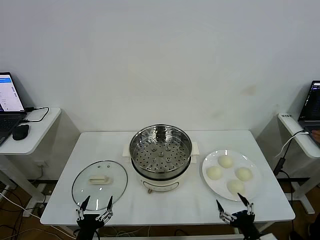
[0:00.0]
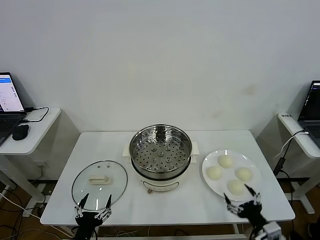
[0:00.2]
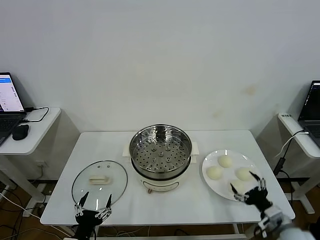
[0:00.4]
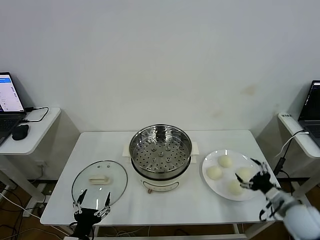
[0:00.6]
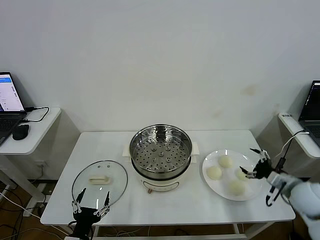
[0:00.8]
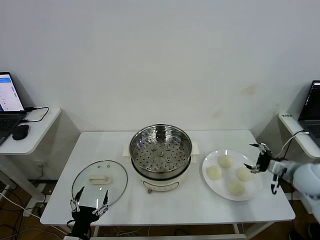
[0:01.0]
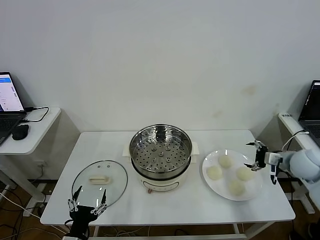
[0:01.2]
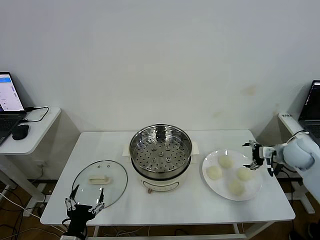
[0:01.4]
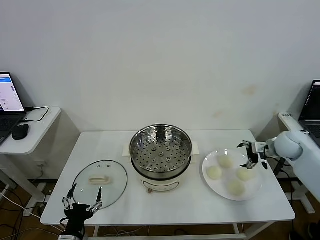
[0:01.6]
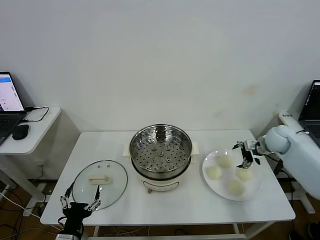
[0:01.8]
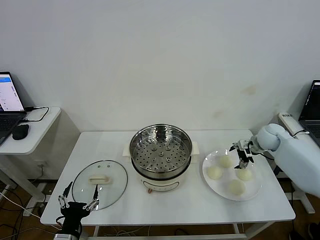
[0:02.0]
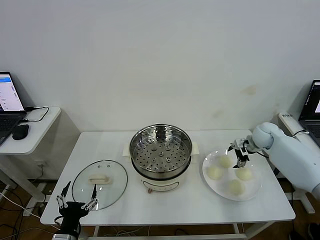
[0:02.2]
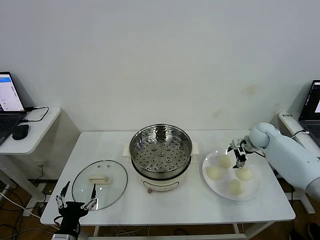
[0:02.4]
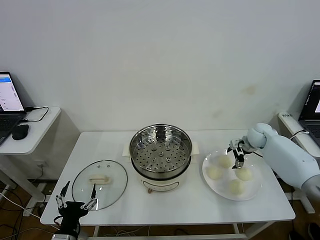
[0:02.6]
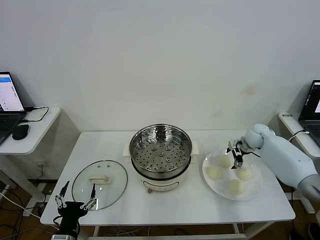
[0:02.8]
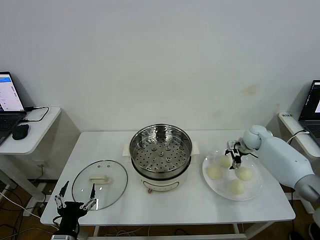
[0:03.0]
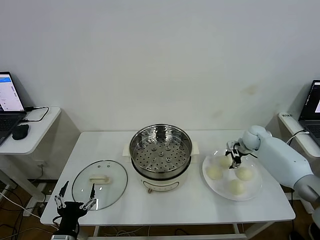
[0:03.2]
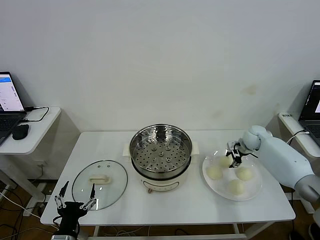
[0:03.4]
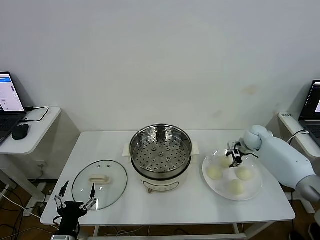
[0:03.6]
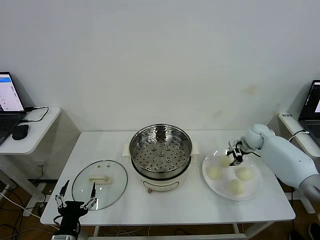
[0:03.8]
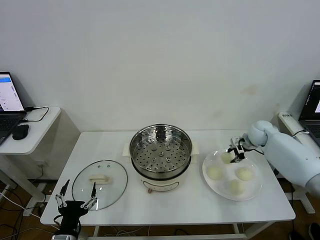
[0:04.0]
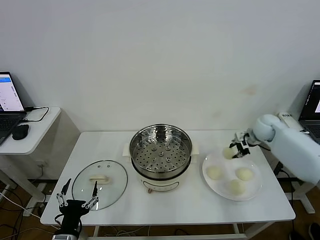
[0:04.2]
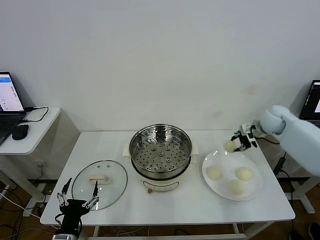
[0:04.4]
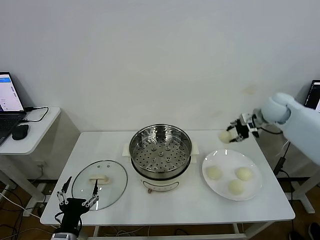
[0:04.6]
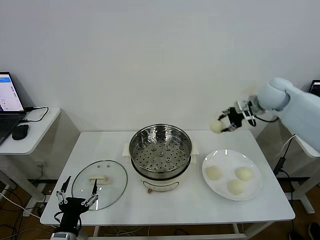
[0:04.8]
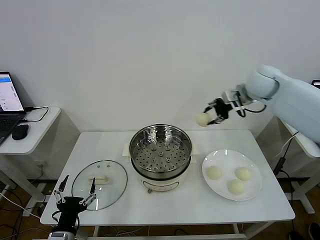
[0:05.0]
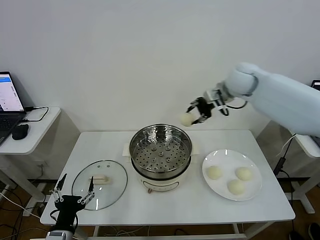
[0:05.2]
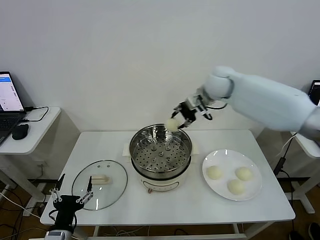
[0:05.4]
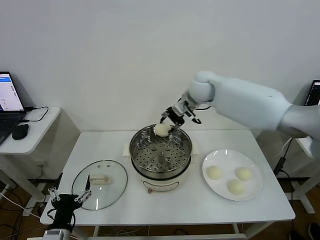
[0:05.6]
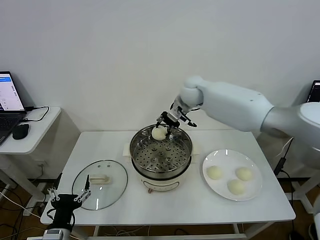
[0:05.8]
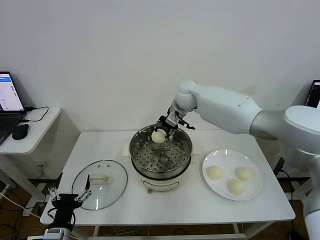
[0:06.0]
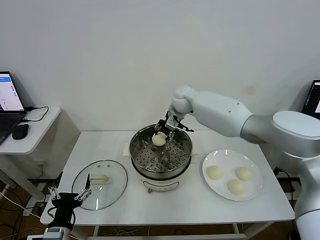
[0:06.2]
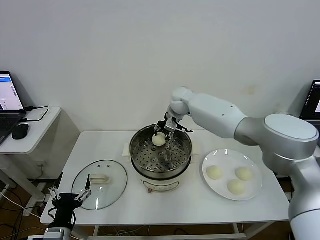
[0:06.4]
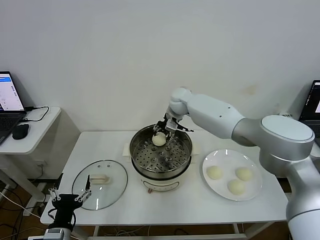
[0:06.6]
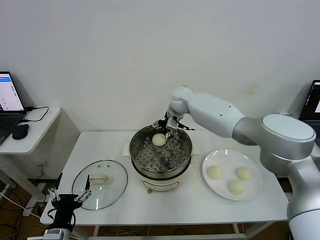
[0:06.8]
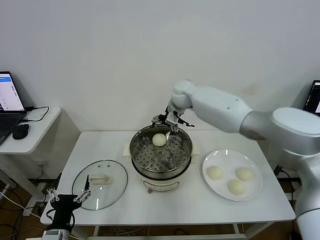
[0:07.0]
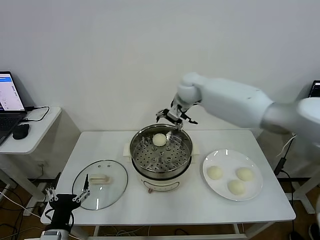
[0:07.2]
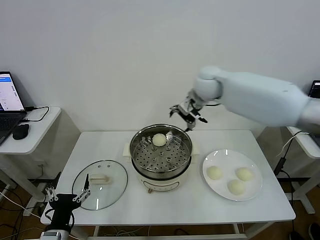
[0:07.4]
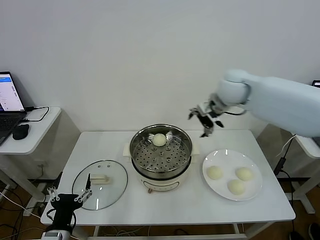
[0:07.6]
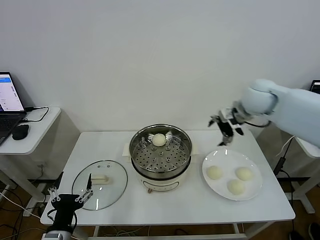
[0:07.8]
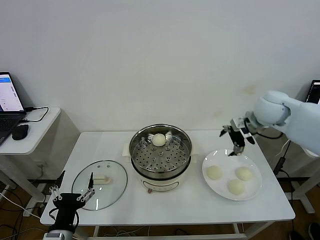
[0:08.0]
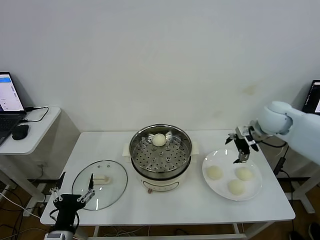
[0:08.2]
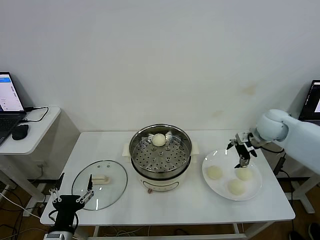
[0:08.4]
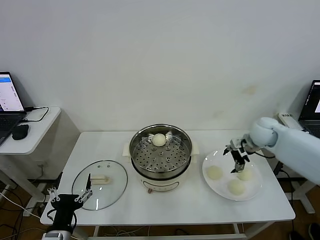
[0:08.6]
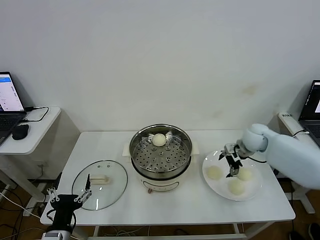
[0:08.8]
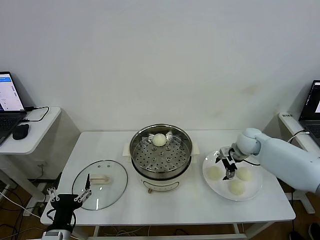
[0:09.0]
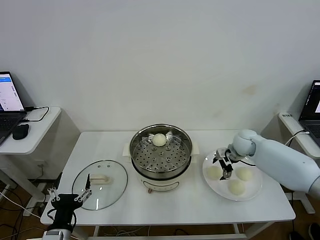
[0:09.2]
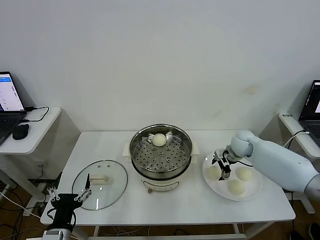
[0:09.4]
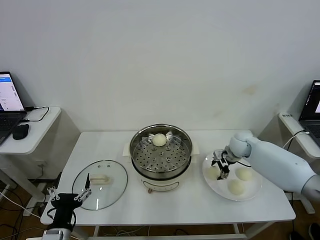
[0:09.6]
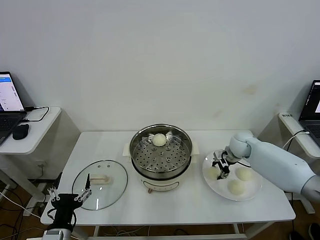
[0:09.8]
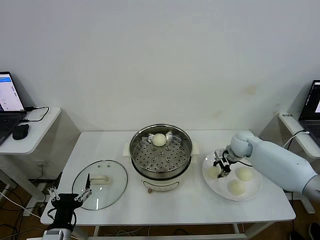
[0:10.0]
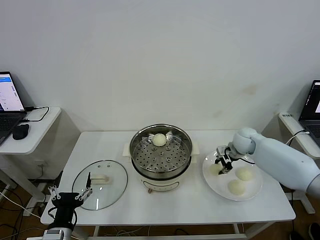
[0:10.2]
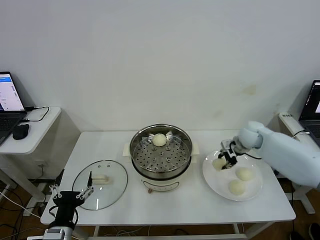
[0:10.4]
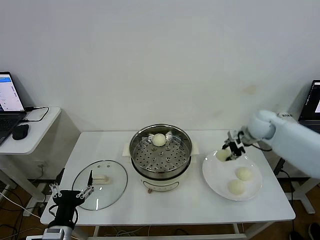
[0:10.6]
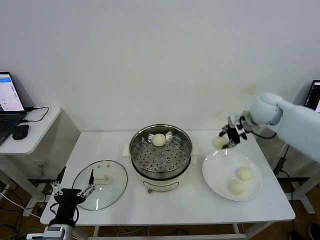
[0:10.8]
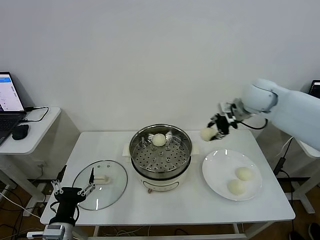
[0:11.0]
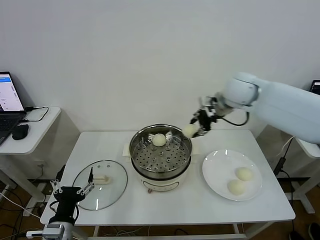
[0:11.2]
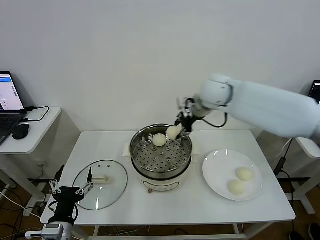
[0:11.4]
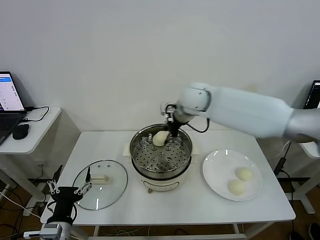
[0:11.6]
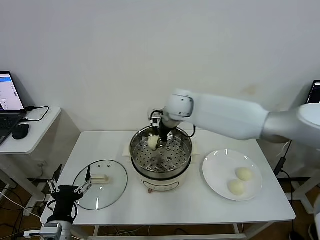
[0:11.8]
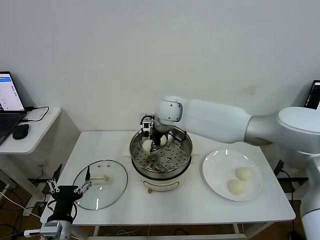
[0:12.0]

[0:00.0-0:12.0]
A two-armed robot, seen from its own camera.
Step, 0.0 to 3.6 s: Grasp the baozi in the plate with right gripper.
Step, 3.8 to 6.8 s: Place the baozi on the steamer with right gripper.
Step, 7.0 to 10.0 s: Grasp the baozi in the plate with right gripper.
1.6 to 3.0 s: The right gripper goes about 15 cm forward, downward and to the left.
3.0 to 4.4 s: The right gripper shifts some 10 cm upward, and closes up.
4.4 to 6.0 s: The right gripper heads to the left, covering roughly 30 cm.
6.0 to 7.6 s: The right gripper is displaced to the right, backward and upward by roughly 15 cm, and opens its fingers.
7.6 to 9.0 s: The right gripper heads downward and to the right, covering about 25 cm.
9.0 to 10.4 s: The right gripper closes up.
10.4 to 12.0 s: The right gripper travels to the left by roughly 30 cm.

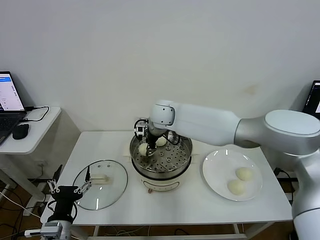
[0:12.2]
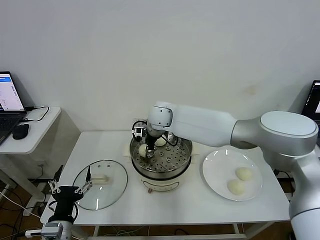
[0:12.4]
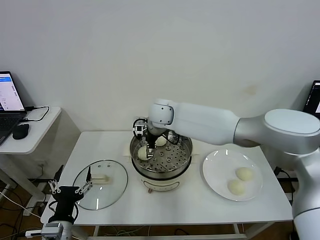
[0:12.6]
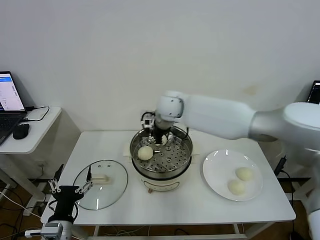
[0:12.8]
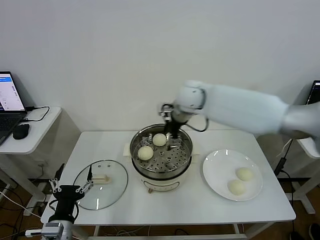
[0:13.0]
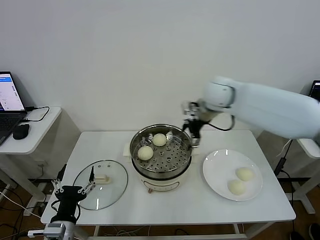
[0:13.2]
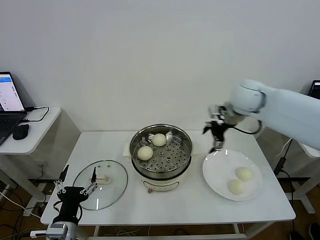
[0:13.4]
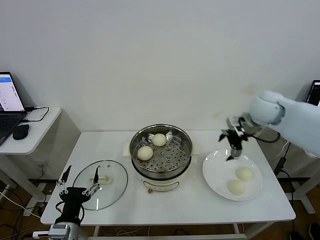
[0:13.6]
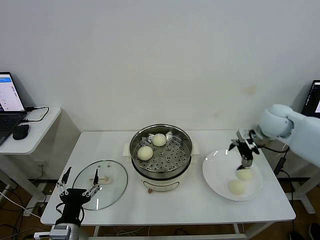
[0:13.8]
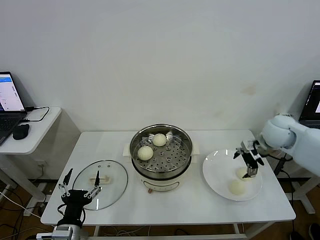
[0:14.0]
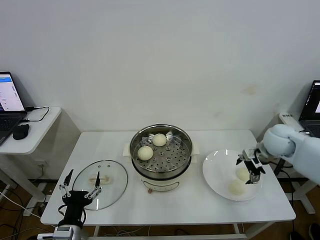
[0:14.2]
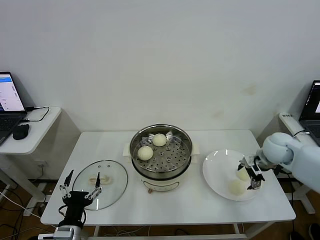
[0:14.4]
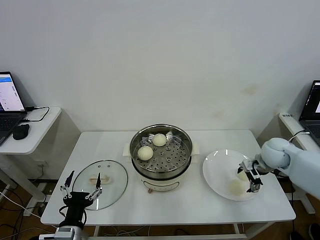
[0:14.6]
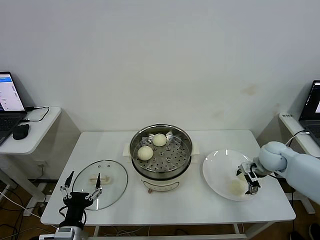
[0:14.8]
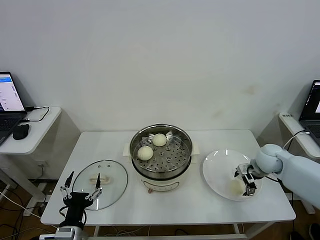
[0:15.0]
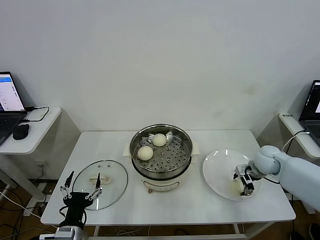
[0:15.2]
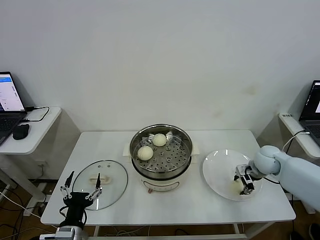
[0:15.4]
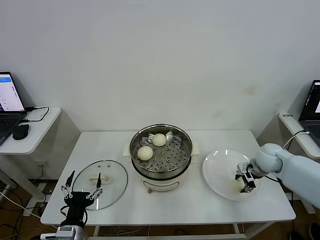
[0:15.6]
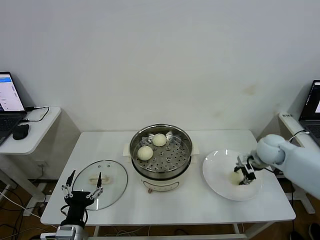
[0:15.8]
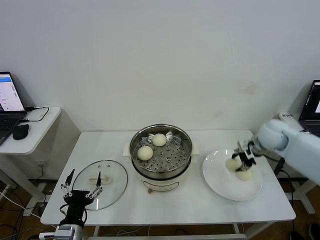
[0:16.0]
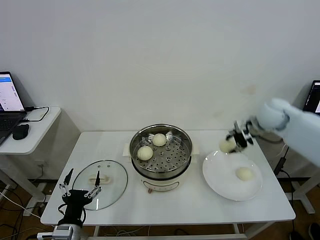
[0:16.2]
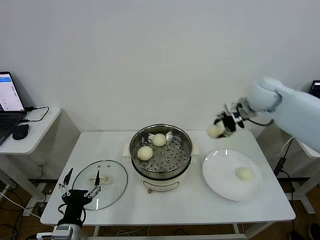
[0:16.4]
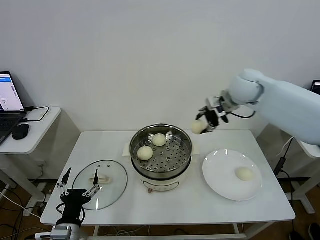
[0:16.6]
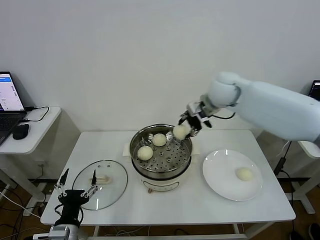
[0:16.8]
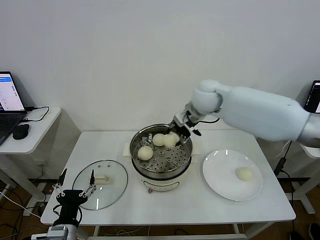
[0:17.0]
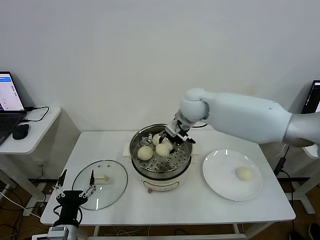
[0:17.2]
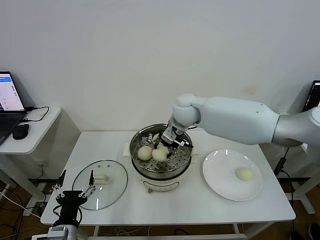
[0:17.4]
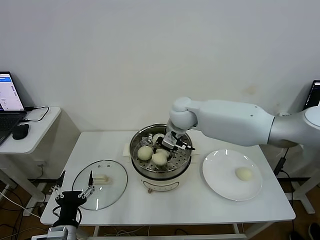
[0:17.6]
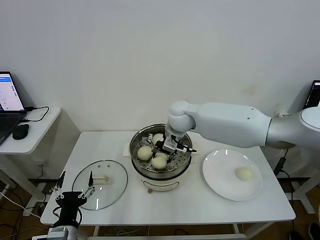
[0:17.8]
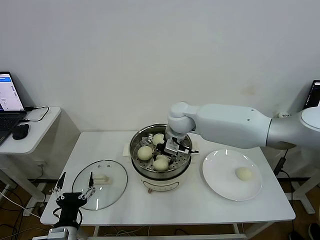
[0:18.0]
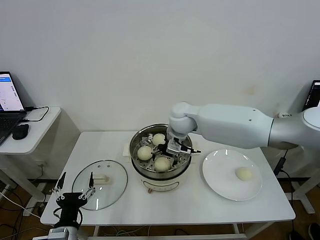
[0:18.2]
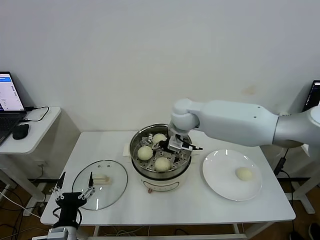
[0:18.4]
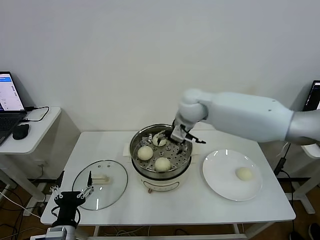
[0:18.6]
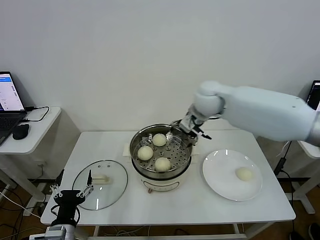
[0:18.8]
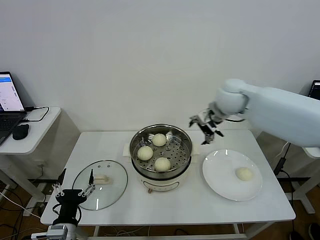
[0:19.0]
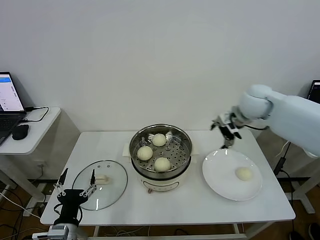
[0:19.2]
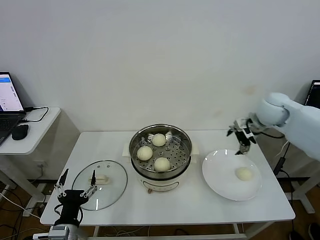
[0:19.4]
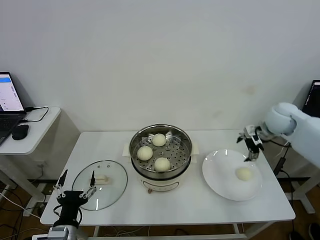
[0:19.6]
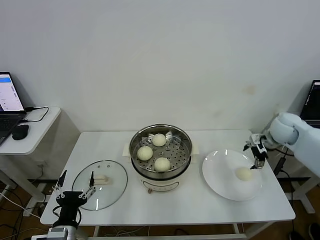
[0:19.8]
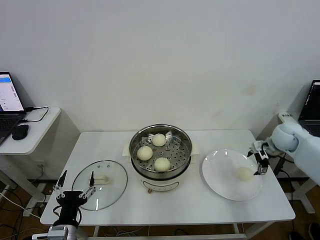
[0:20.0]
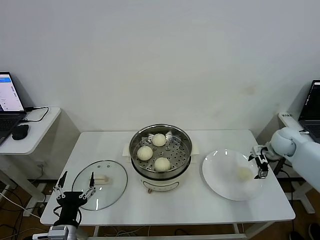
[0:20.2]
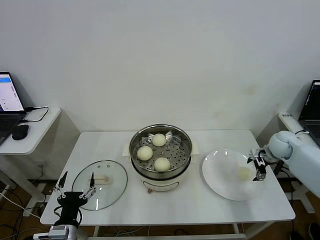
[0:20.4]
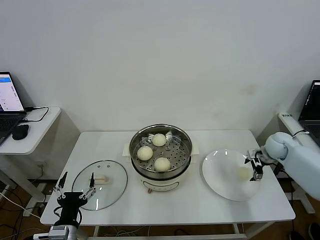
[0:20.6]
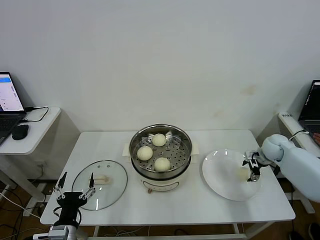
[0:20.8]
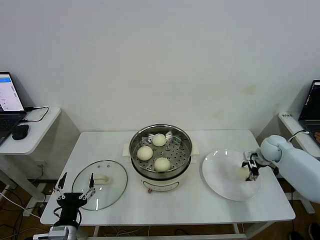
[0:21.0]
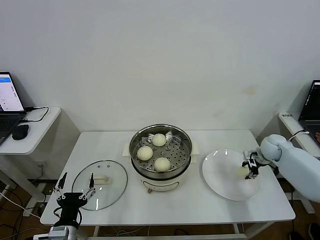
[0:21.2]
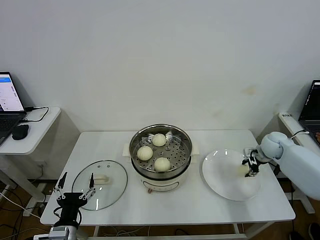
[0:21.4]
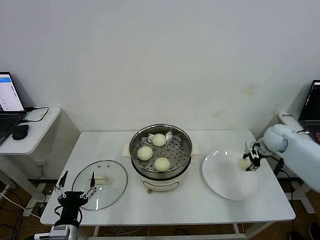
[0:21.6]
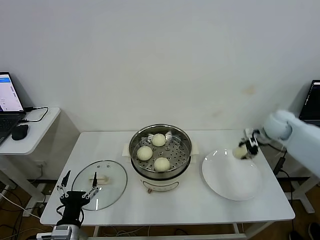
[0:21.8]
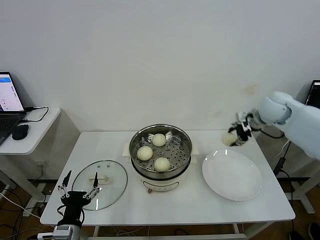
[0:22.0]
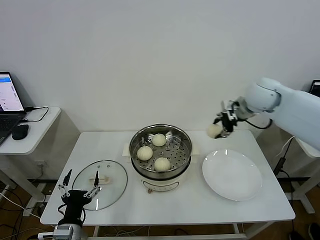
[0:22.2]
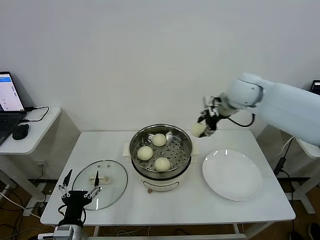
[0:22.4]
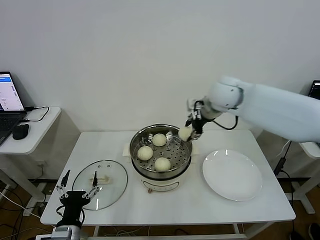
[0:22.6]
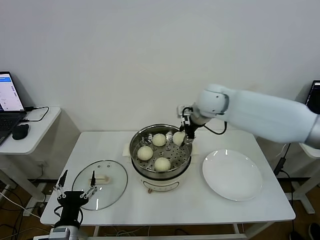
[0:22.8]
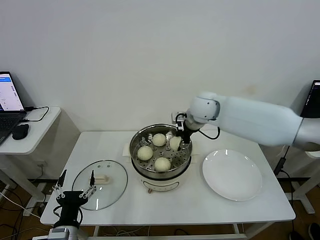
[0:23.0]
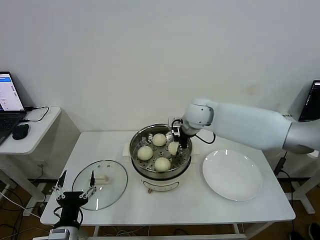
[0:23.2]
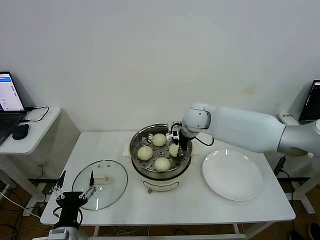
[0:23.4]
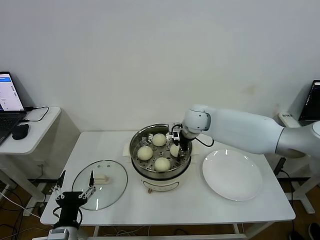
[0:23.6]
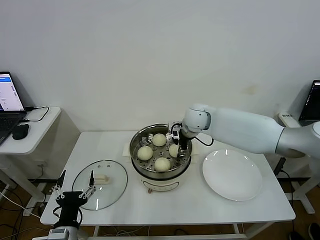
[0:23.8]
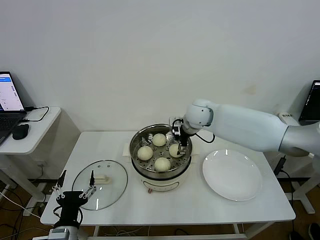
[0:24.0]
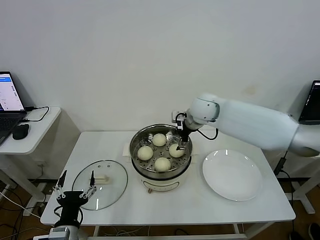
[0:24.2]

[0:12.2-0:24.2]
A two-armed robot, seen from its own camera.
Step, 12.8 to 15.4 s: Grasp the baozi in the plate with right gripper.
Step, 15.6 to 18.4 s: Place the baozi on the steamer with right gripper.
Step, 18.6 to 21.0 s: Grasp the baozi in the plate with right gripper.
12.2 to 13.8 s: The right gripper is displaced to the right by approximately 35 cm, and opens.
13.8 to 15.2 s: The right gripper travels downward by about 15 cm, and closes its fingers.
15.2 to 16.6 s: The right gripper is displaced upward and to the left by roughly 30 cm, and closes its fingers.
16.6 to 18.2 s: The right gripper moves to the left and downward, roughly 20 cm, and opens.
18.2 to 19.8 s: The right gripper goes about 35 cm to the right.
19.8 to 21.2 s: The right gripper travels downward by approximately 10 cm, and closes.
21.2 to 22.6 s: The right gripper heads to the left and upward, covering approximately 35 cm.
22.6 to 24.2 s: The right gripper goes some 10 cm downward and to the left, and opens its fingers.
